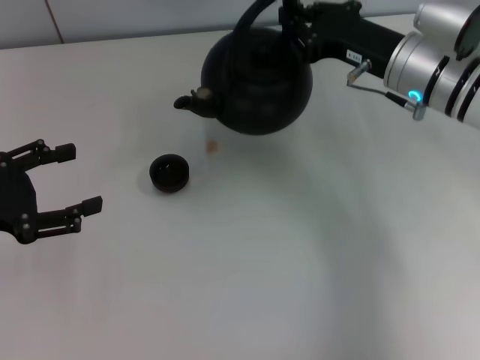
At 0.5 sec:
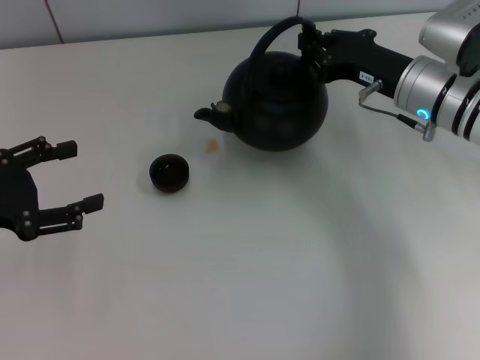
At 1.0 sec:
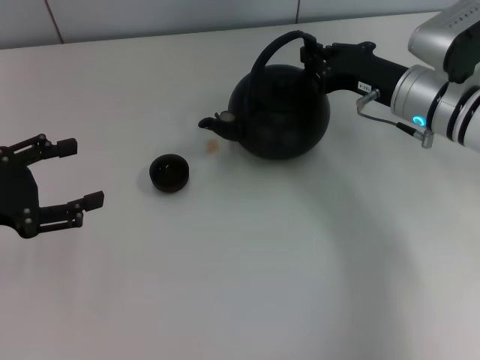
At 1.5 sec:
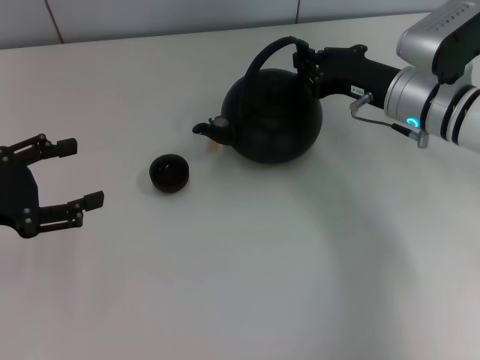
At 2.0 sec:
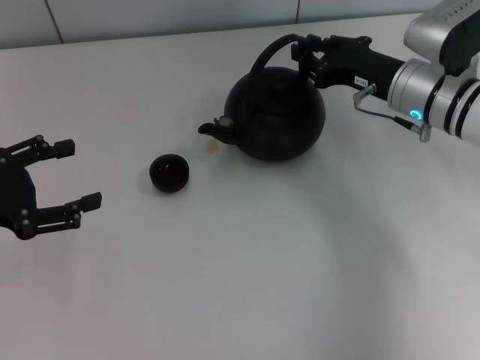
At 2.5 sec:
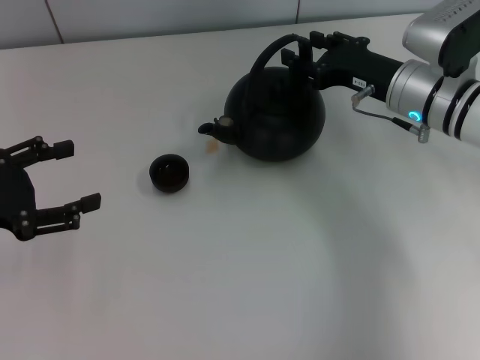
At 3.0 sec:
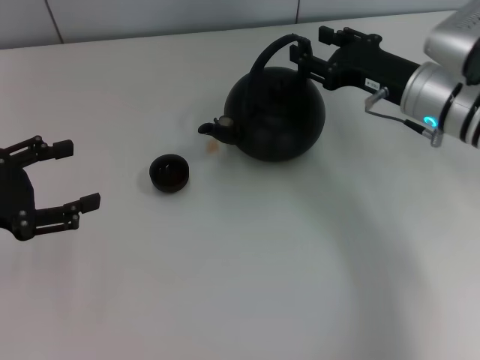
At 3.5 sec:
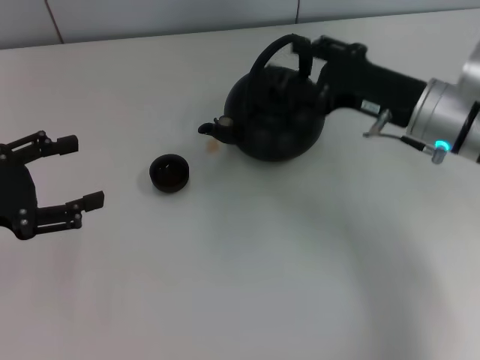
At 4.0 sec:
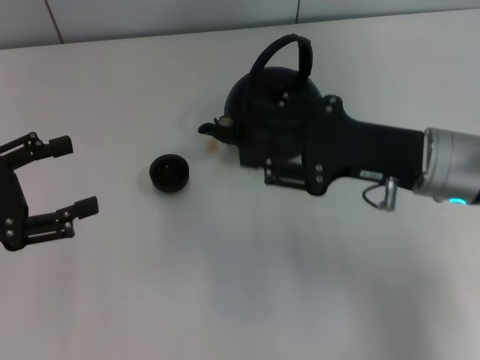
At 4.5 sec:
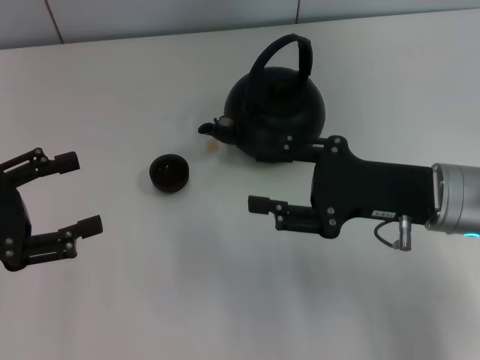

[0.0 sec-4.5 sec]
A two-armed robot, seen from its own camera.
Task of the whole recording: Grasp the handle of the teapot with one hand and pour tea into the teacup.
Step, 0.0 sec to 3.5 sec: Put down the teapot with the right gripper.
0.0 sec to 2.0 sec: There are only small adjustments of the grippers.
2.0 sec to 4.5 sec: The right gripper goes roughly 10 cm backward, and opens up.
